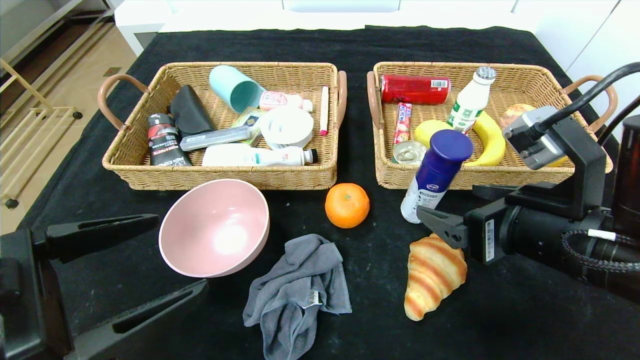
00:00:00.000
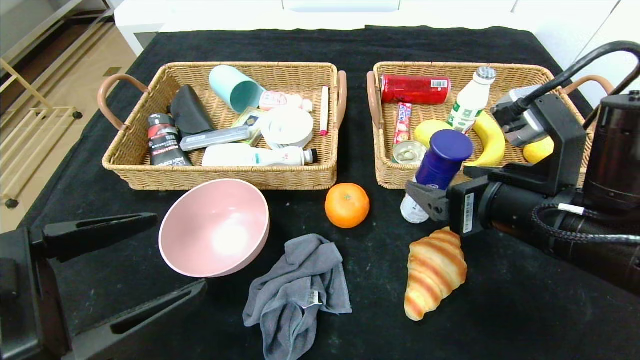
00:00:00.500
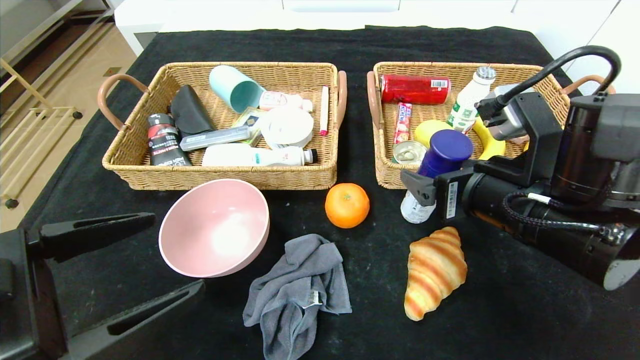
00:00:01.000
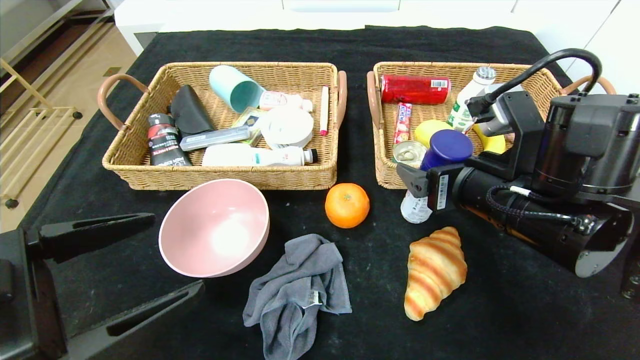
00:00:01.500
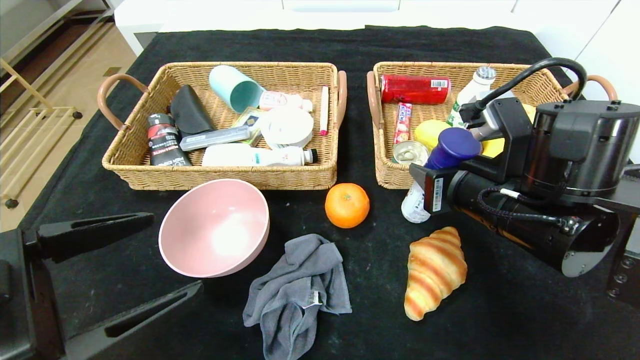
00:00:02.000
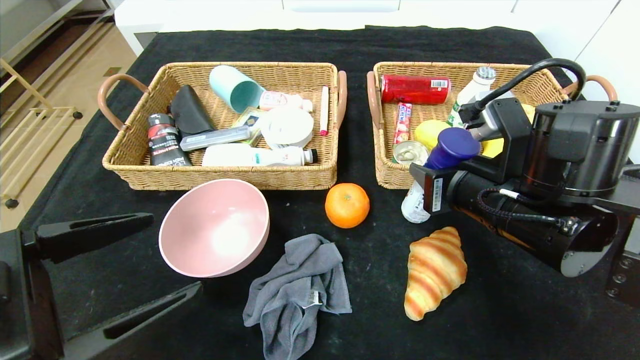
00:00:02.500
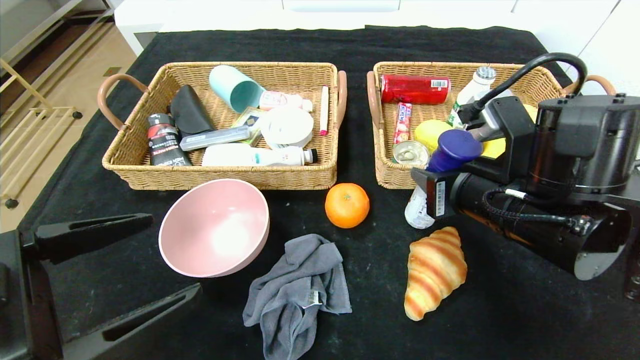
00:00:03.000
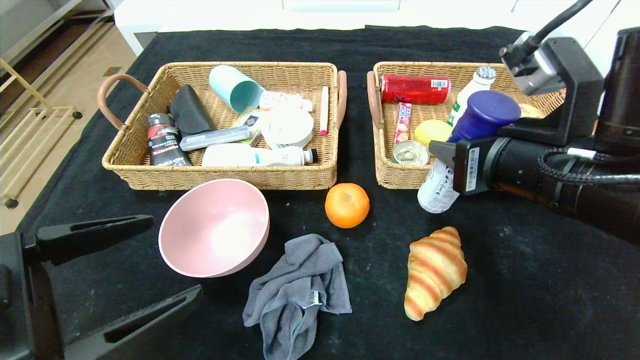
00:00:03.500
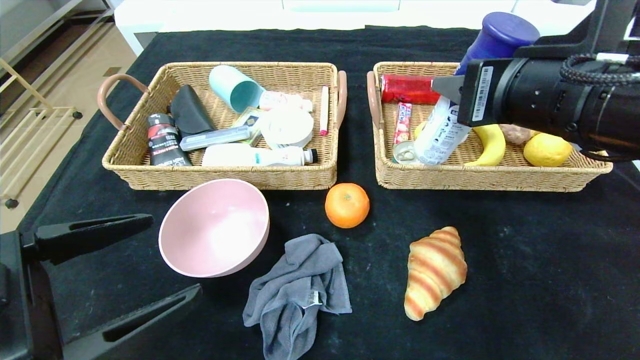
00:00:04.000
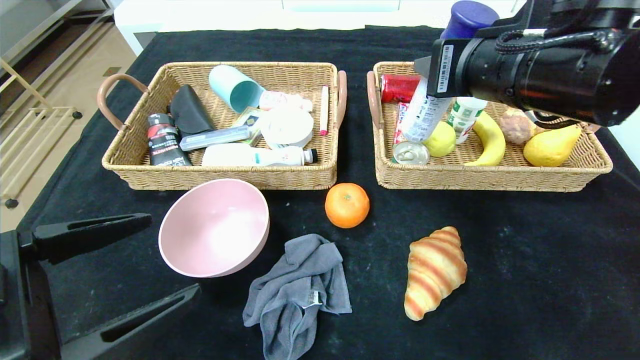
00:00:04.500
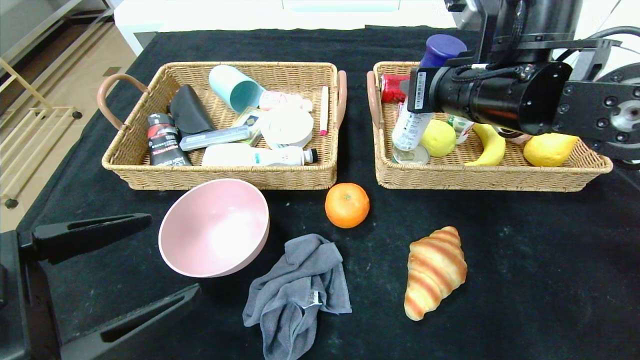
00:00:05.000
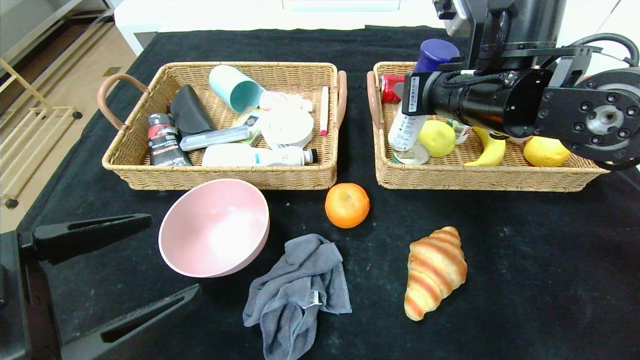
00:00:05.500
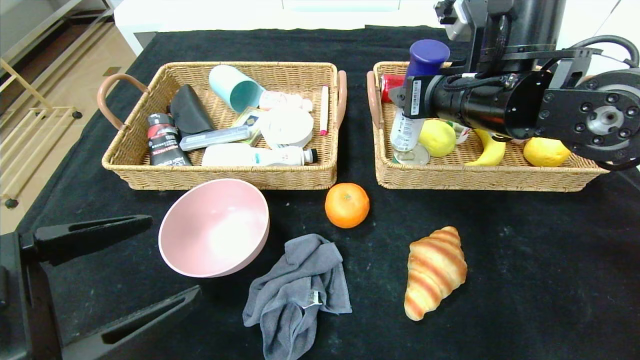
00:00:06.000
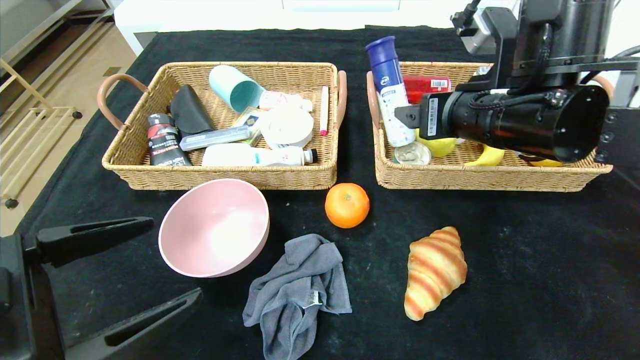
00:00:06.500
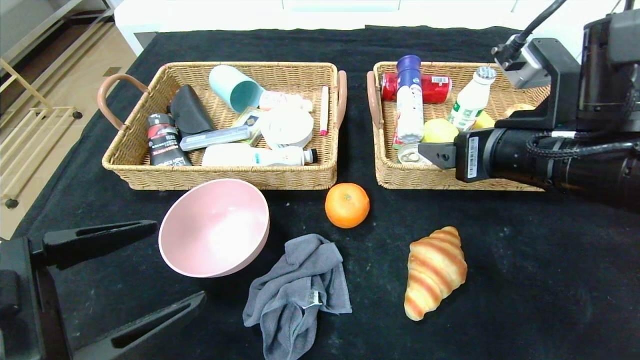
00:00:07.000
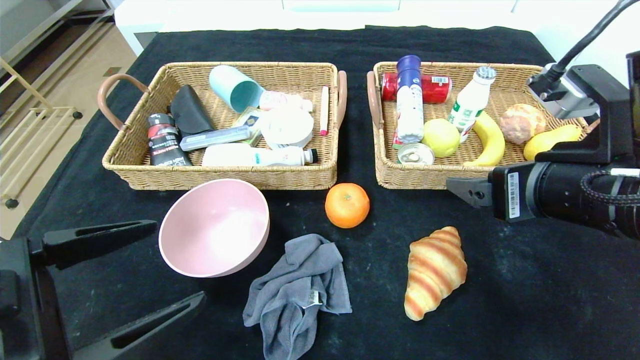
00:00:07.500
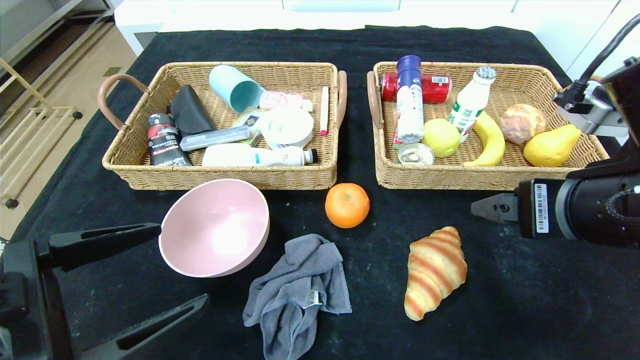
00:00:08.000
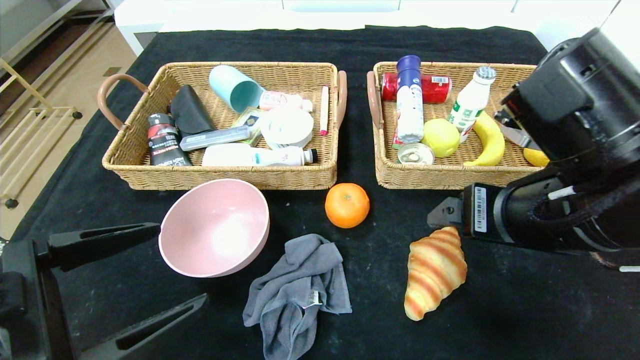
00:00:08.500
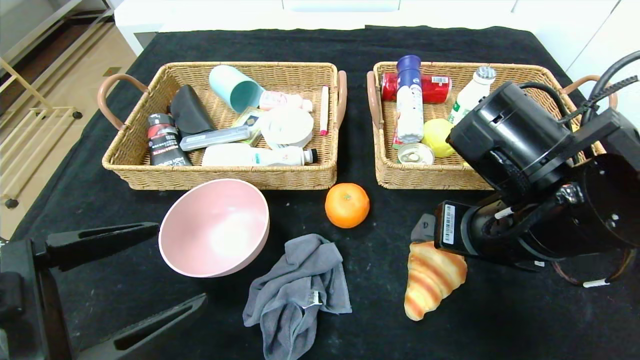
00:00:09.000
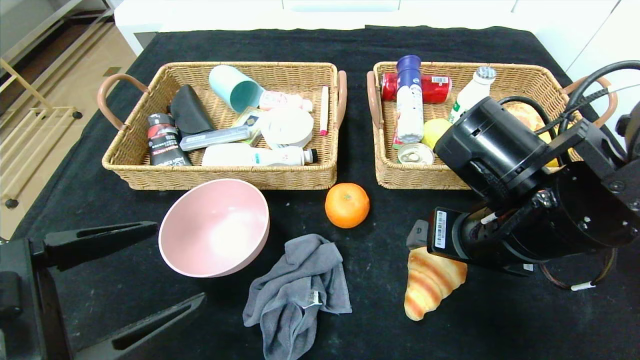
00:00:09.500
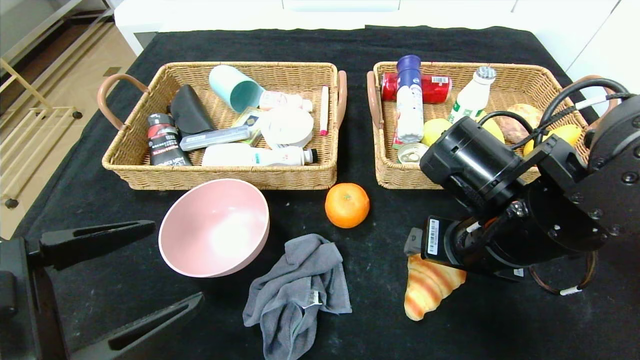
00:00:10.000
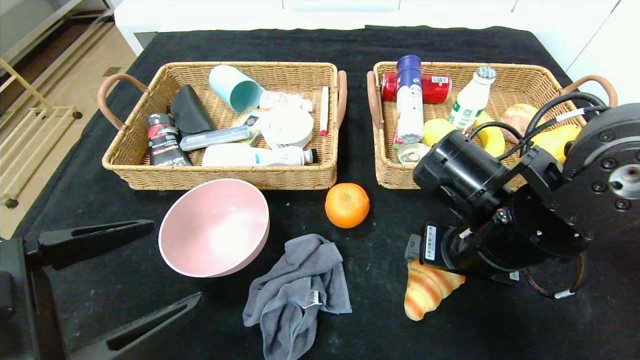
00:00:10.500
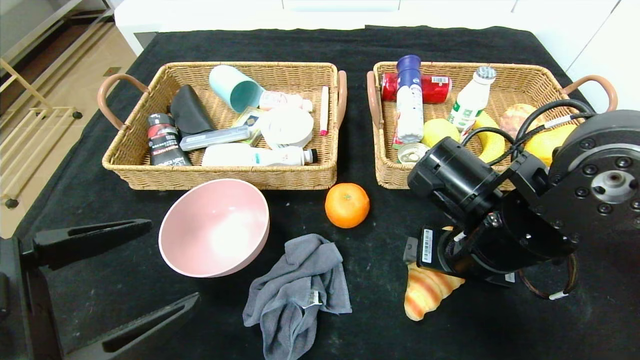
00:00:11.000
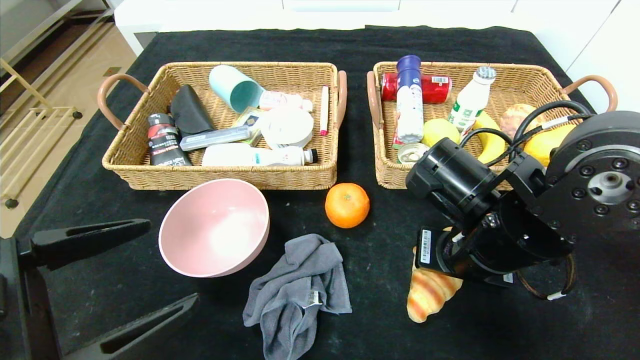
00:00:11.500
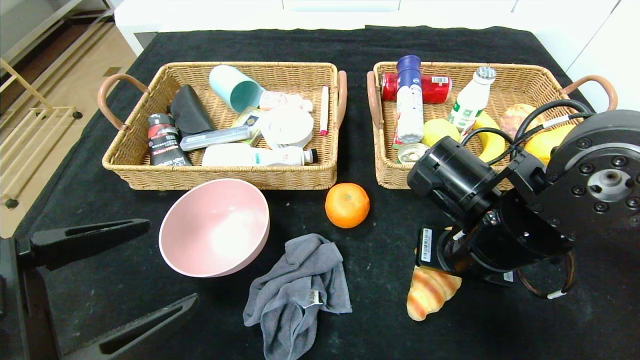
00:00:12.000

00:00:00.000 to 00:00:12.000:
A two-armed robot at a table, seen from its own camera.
Step, 00:00:00.000 to 00:00:06.500: Grasp the yogurt and put it in the right basket.
00:00:00.000 to 00:00:02.000: The right gripper moves forward, about 5 cm, and closes its fingers.
00:00:02.000 to 00:00:04.000: The right gripper is displaced upward by approximately 10 cm.
00:00:04.000 to 00:00:06.000: The right gripper moves forward, about 10 cm, and opens.
00:00:06.000 to 00:00:08.000: The right gripper travels backward by roughly 15 cm.
00:00:08.000 to 00:00:10.000: The right gripper shifts some 10 cm to the left, downward and forward.
00:00:10.000 to 00:00:12.000: The right gripper closes its fingers.

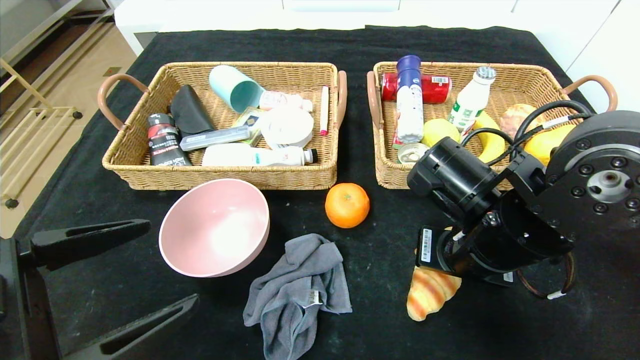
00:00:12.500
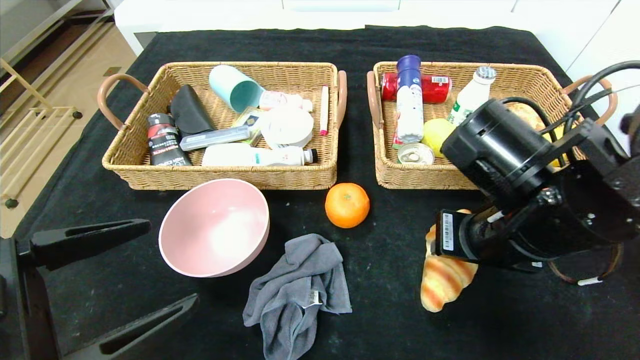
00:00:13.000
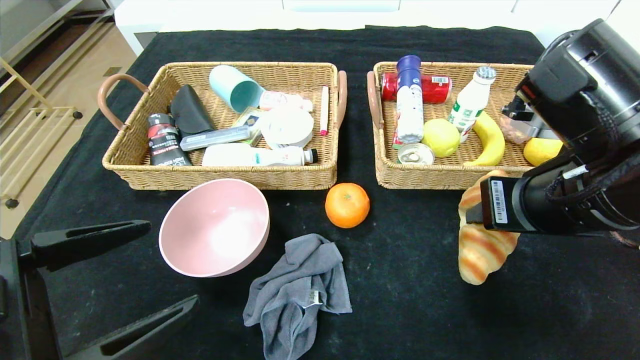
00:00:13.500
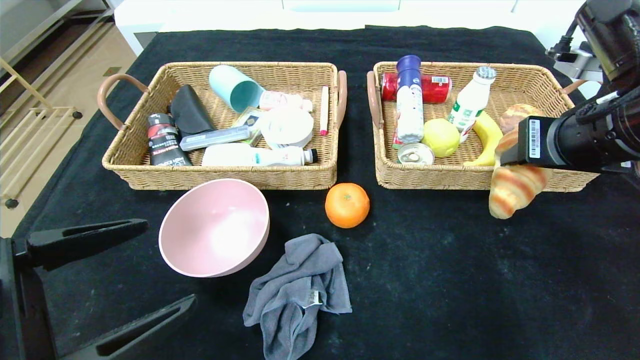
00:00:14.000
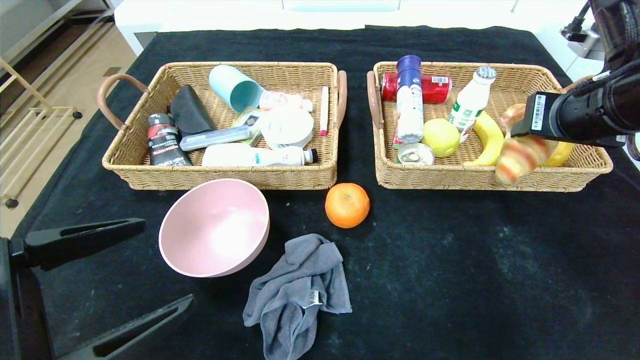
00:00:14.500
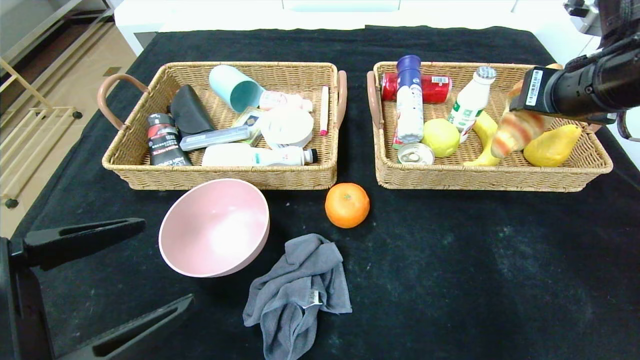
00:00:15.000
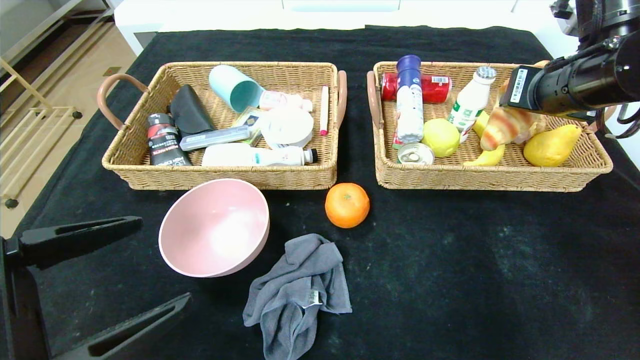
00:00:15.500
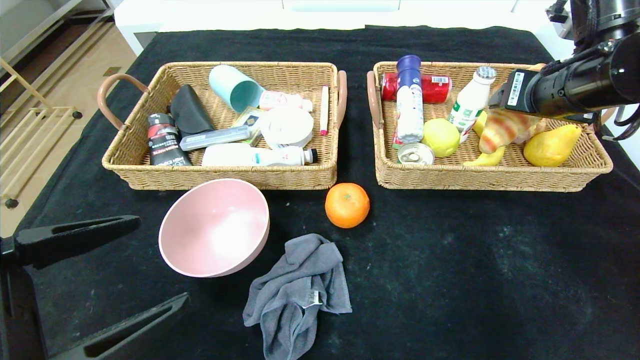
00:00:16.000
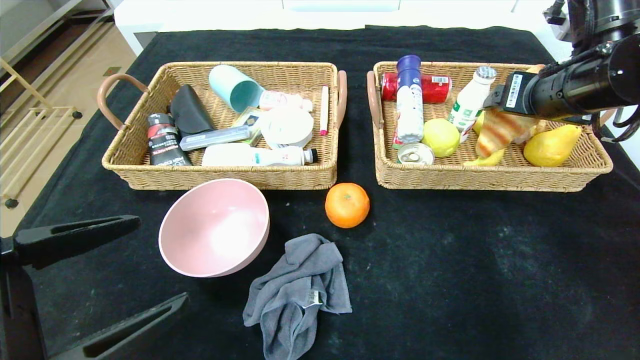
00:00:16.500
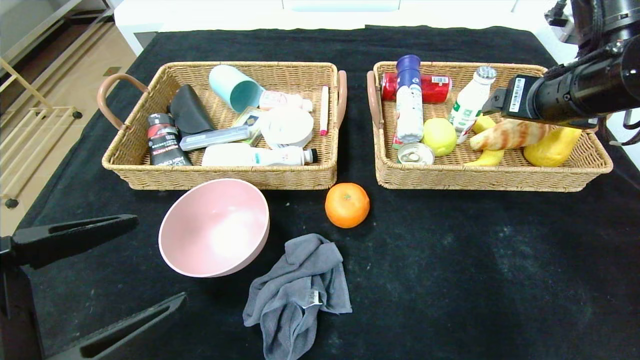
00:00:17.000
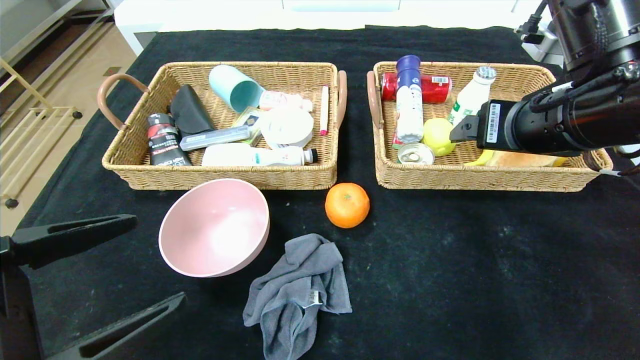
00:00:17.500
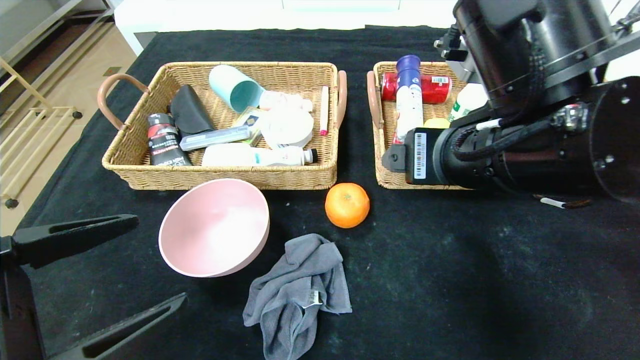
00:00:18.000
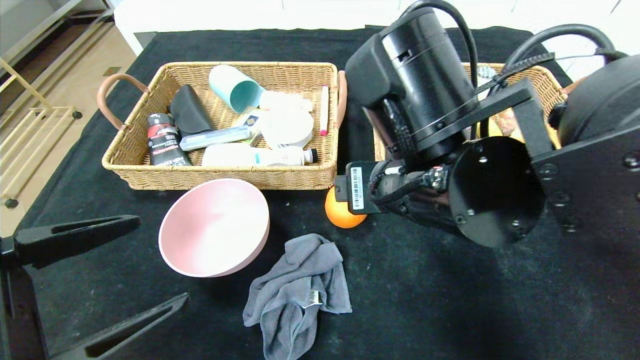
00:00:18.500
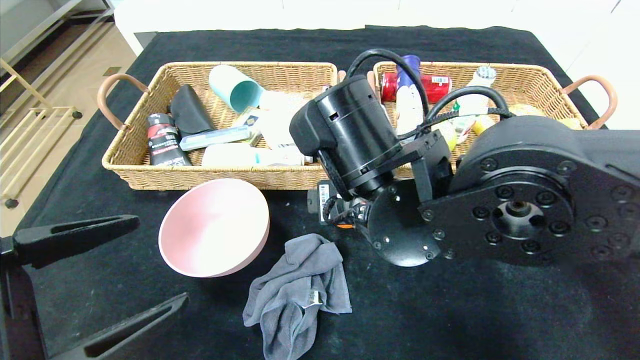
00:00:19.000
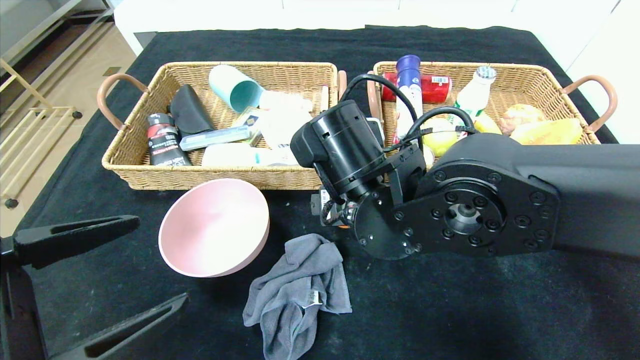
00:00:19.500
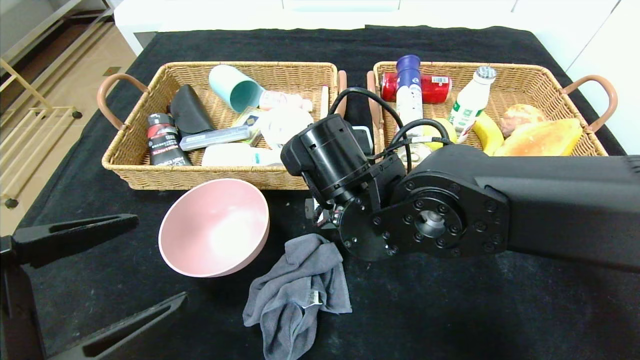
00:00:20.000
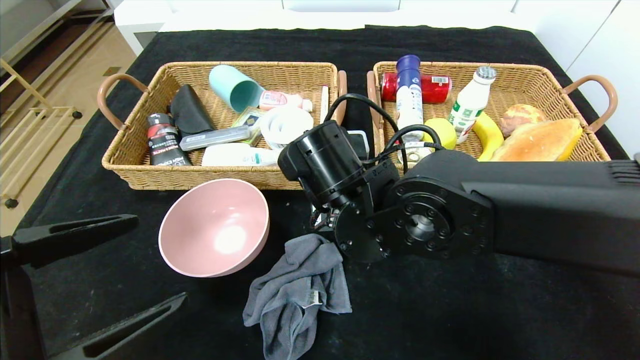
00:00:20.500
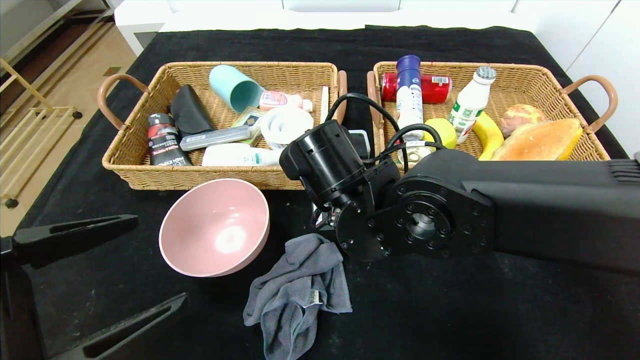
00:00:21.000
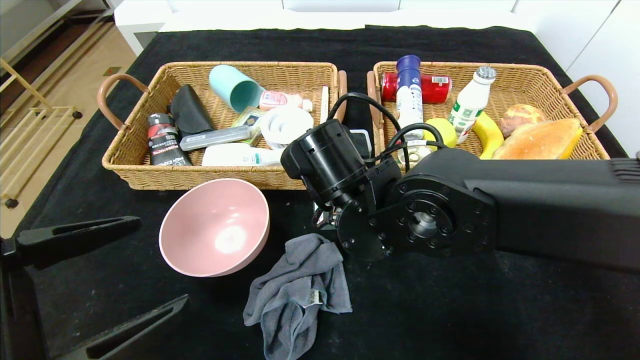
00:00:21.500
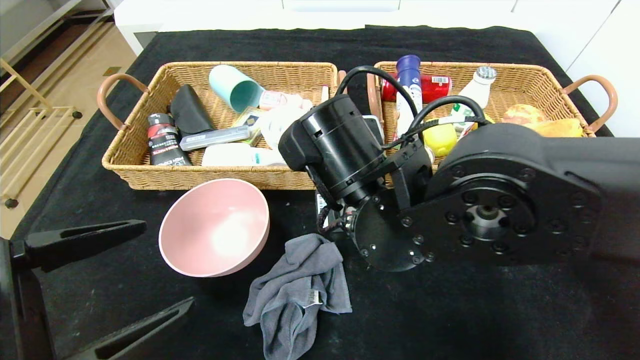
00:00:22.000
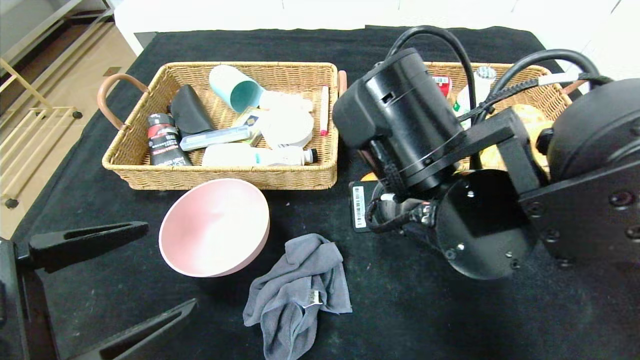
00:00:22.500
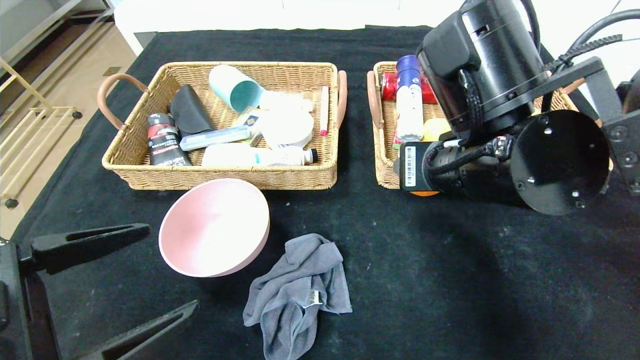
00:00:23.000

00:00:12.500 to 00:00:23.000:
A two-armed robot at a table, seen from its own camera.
Step, 00:00:12.500 to 00:00:16.500: Grasp the croissant and put it in the right basket.
00:00:12.500 to 00:00:14.500: The right gripper shifts roughly 15 cm upward and to the right.
00:00:14.500 to 00:00:16.500: The right gripper opens up.
00:00:16.500 to 00:00:19.000: The right gripper moves to the left and downward, roughly 25 cm.
00:00:19.000 to 00:00:21.000: The right gripper shifts by some 5 cm, and closes its fingers.
00:00:21.000 to 00:00:23.000: The right gripper travels to the right and upward by roughly 15 cm.
